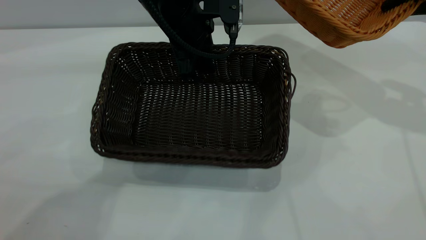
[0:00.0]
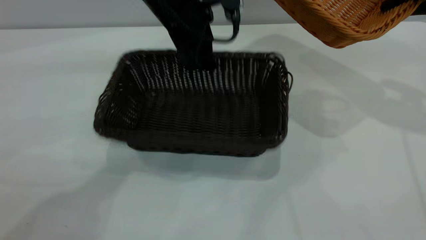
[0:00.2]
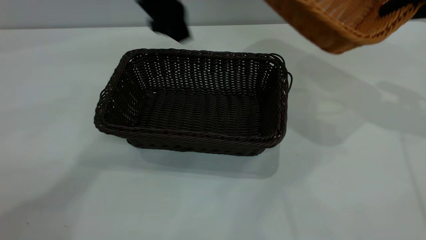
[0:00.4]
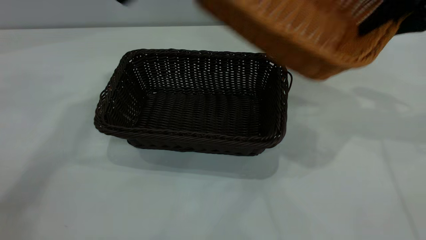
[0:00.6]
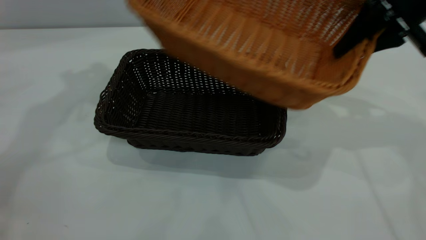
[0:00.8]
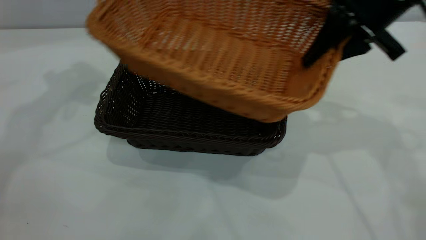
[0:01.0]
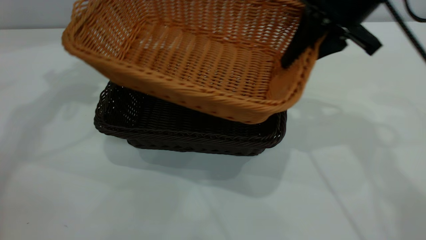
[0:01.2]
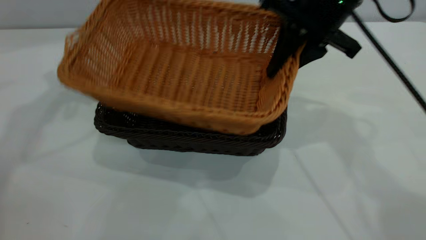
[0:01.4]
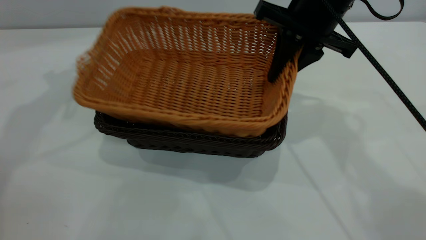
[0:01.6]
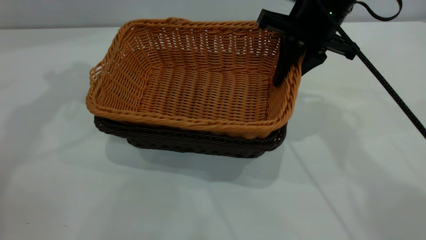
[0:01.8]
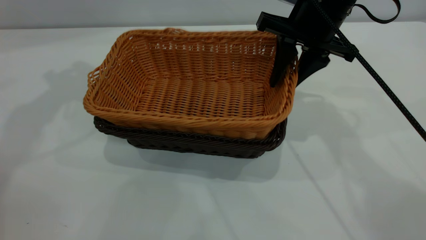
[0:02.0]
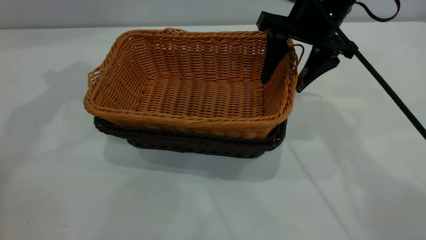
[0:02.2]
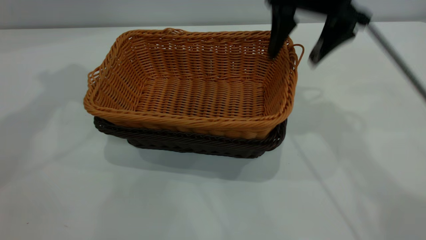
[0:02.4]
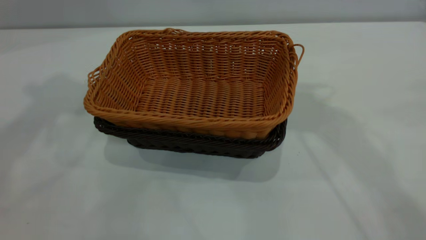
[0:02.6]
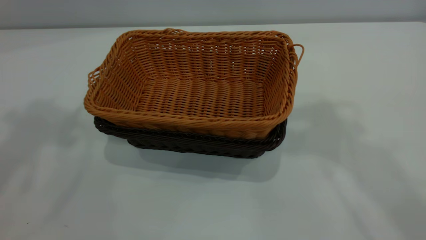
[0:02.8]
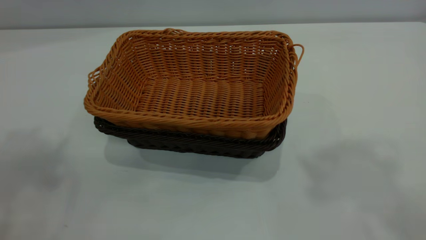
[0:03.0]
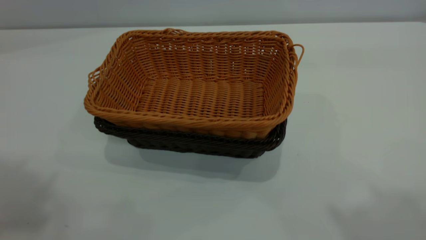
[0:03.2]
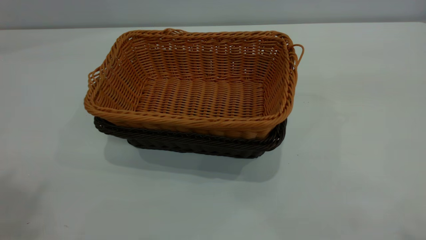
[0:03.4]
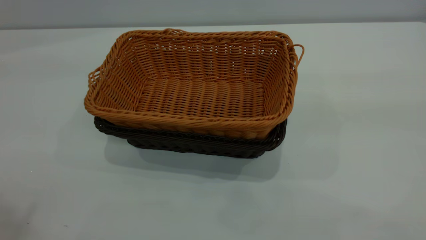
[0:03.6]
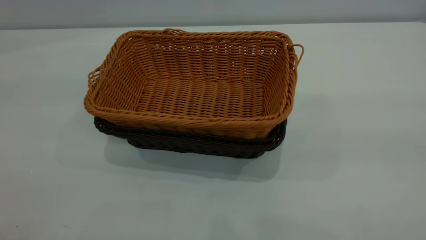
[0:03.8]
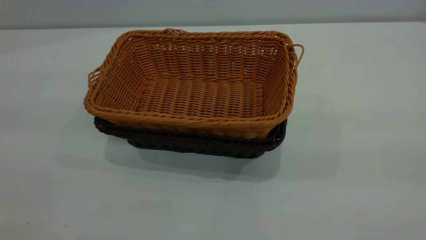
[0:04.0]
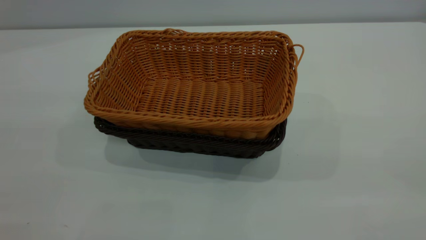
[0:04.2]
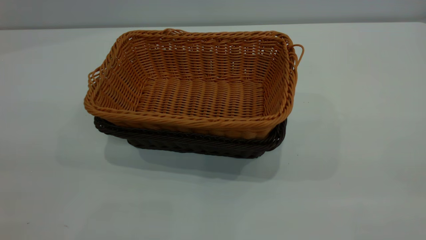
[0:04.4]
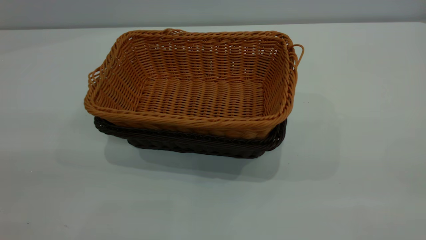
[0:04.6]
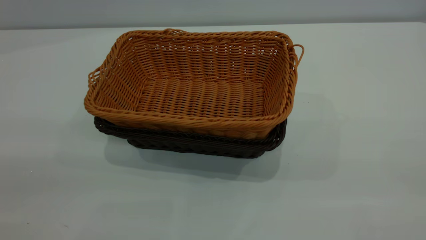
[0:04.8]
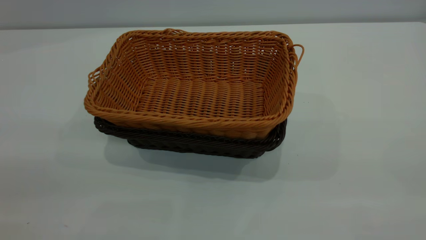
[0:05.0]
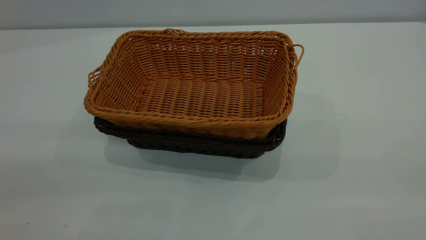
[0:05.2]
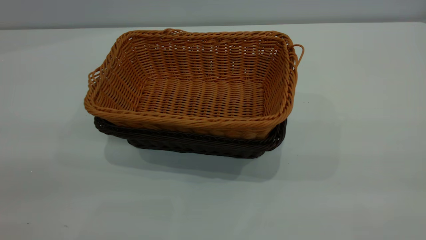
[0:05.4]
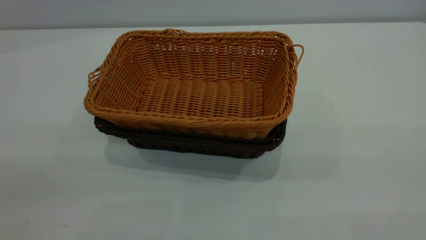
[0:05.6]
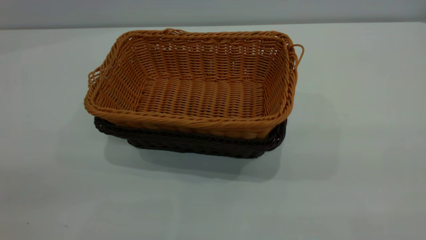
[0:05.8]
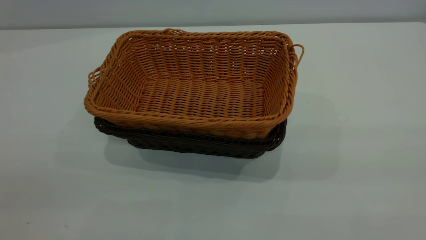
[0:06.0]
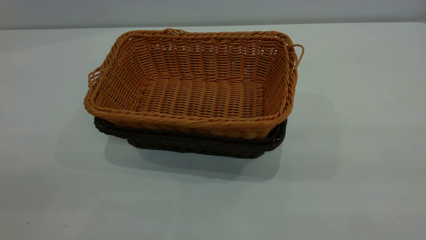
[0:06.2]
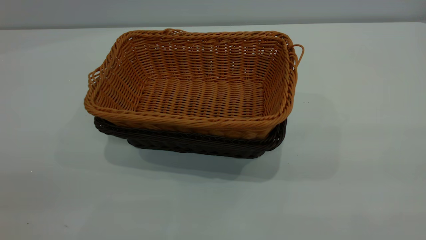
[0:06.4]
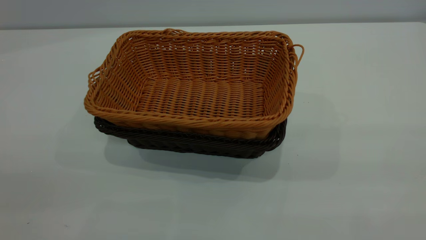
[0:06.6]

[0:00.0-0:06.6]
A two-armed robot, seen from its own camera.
Task of the whole recording: the left gripper grasp the black basket and place it in the center of the table, the right gripper grasp the brown basket and place it inside the black one.
Step, 0:00.6 to 0:02.4: Place the light basket on the dark basket.
0:00.0 to 0:01.6: The left gripper heads to the left and upward, covering about 25 cm. The right gripper goes roughly 20 cm to the left.
0:01.6 to 0:03.2: The left gripper moves backward and upward, about 35 cm; the right gripper heads upward and backward, covering approximately 40 cm, and opens.

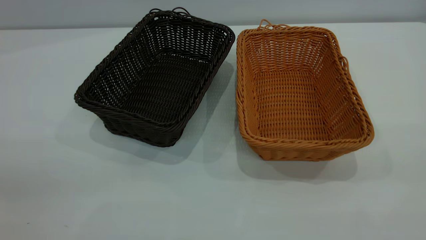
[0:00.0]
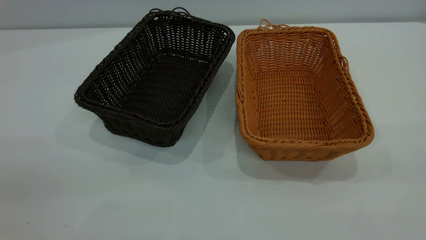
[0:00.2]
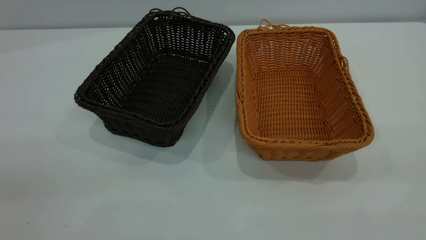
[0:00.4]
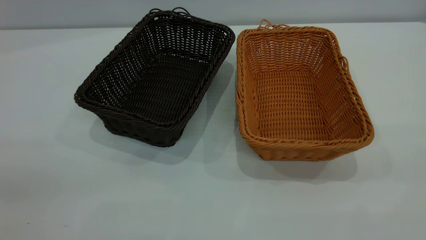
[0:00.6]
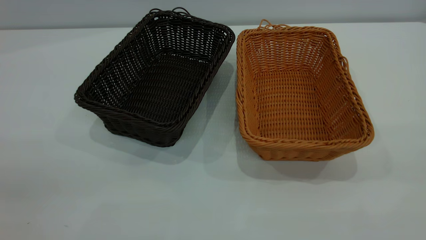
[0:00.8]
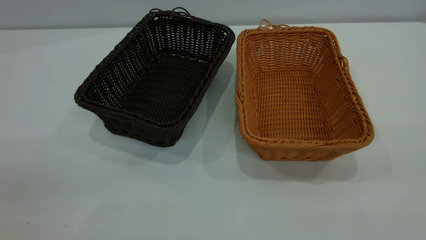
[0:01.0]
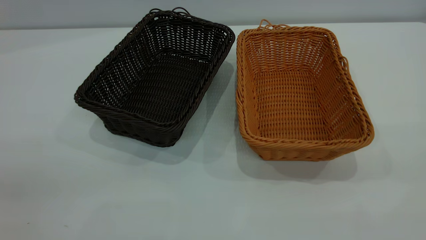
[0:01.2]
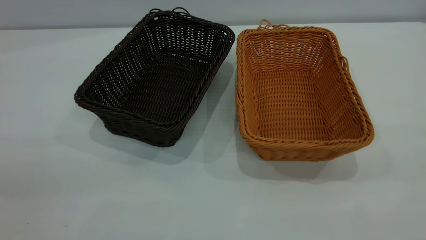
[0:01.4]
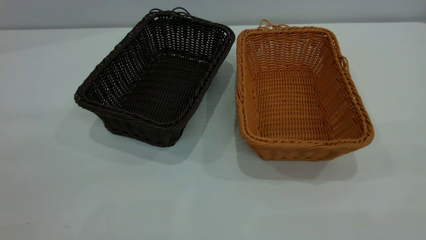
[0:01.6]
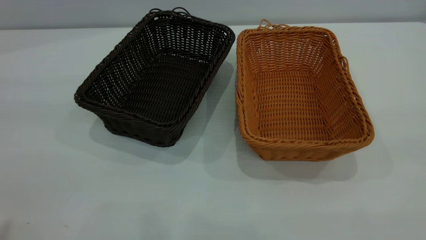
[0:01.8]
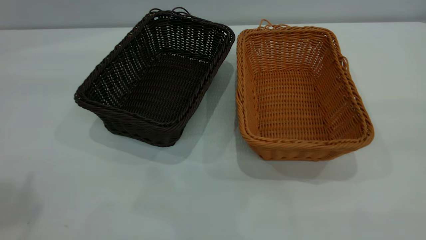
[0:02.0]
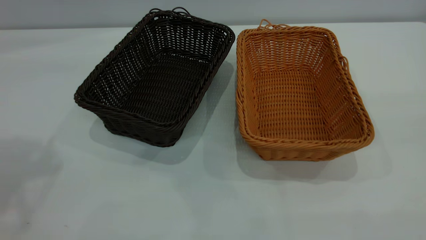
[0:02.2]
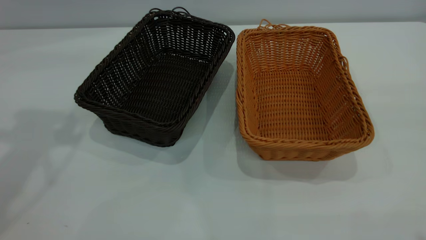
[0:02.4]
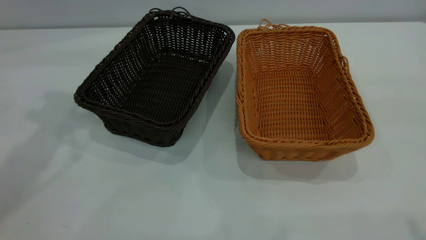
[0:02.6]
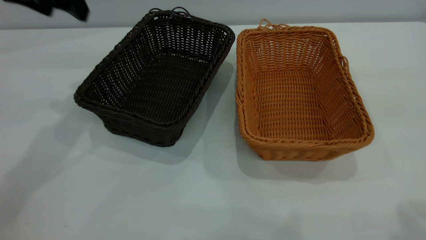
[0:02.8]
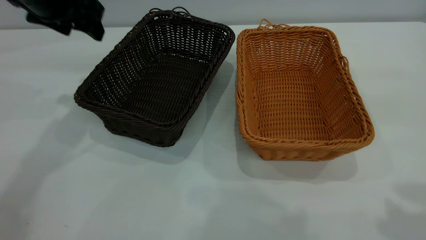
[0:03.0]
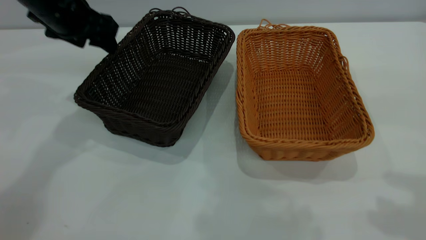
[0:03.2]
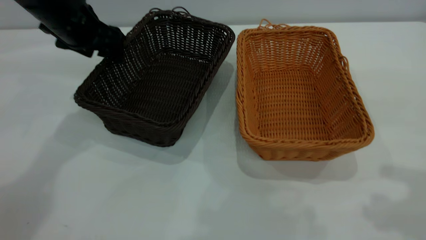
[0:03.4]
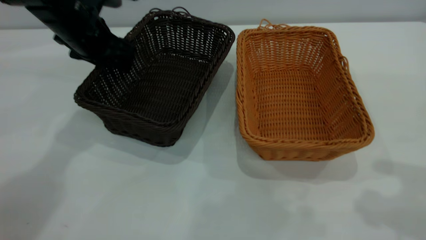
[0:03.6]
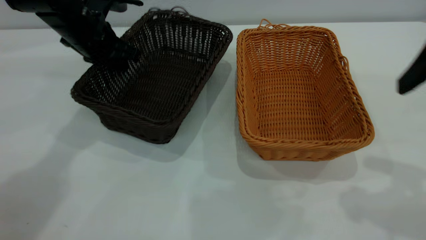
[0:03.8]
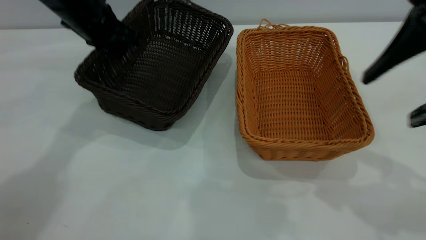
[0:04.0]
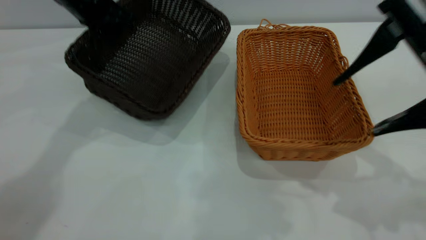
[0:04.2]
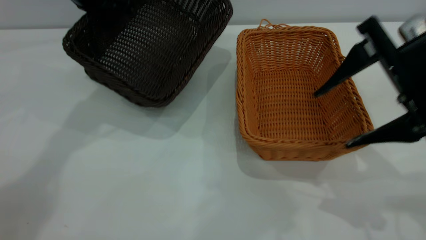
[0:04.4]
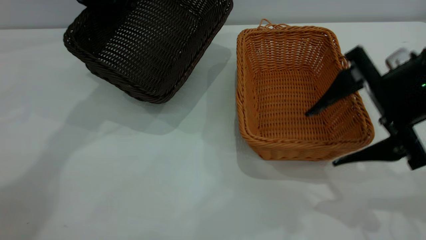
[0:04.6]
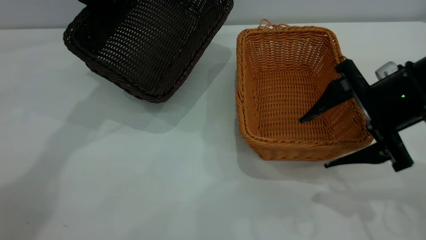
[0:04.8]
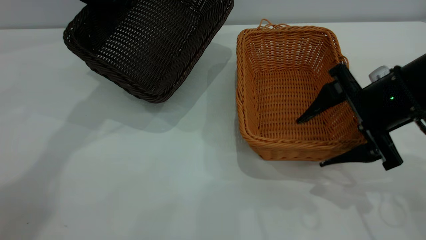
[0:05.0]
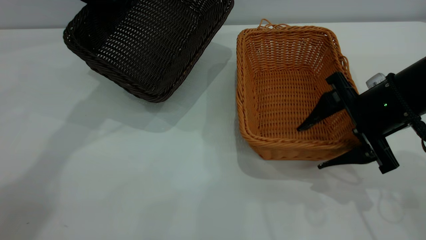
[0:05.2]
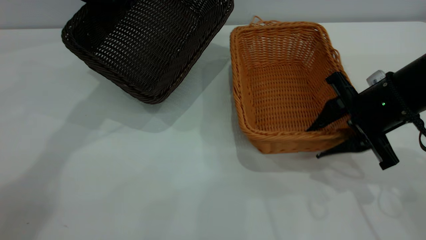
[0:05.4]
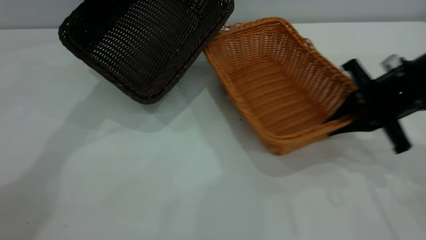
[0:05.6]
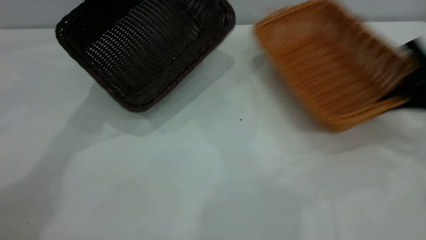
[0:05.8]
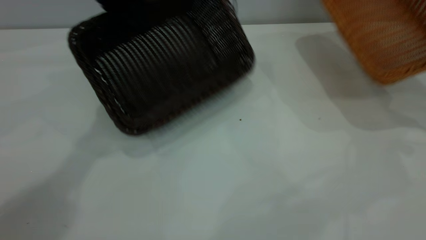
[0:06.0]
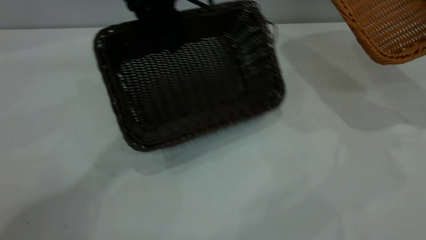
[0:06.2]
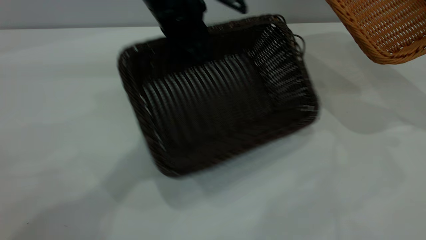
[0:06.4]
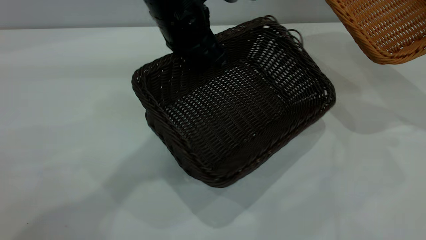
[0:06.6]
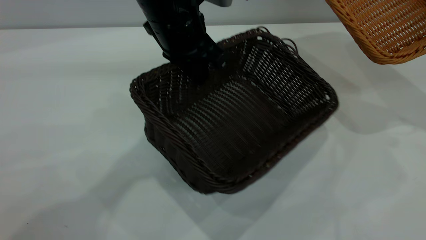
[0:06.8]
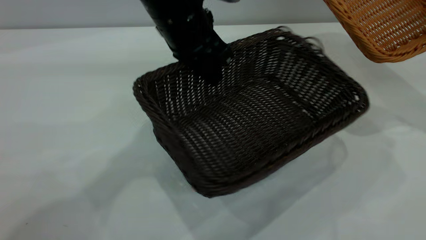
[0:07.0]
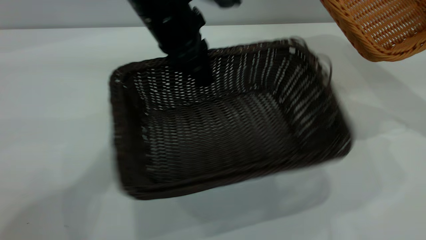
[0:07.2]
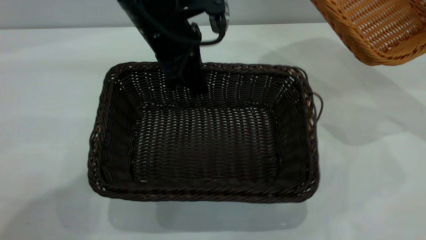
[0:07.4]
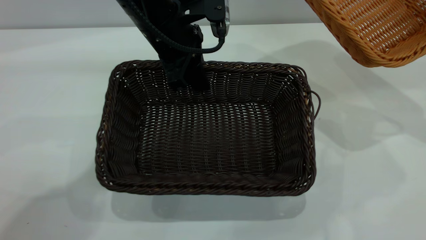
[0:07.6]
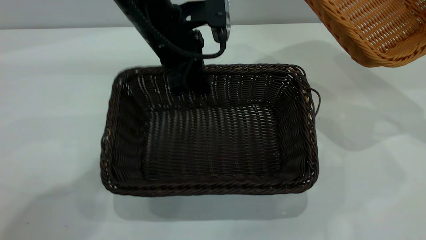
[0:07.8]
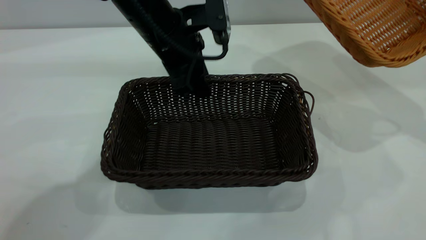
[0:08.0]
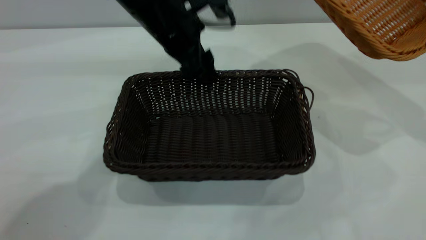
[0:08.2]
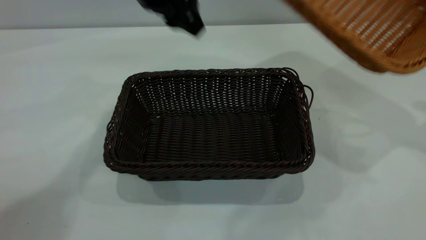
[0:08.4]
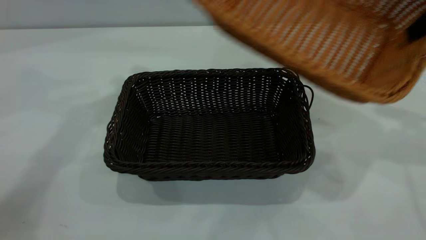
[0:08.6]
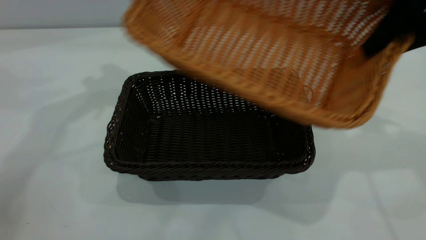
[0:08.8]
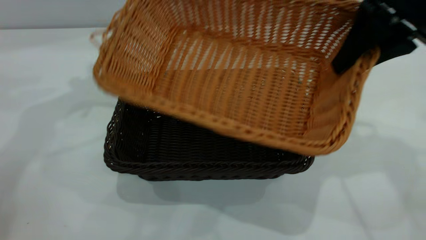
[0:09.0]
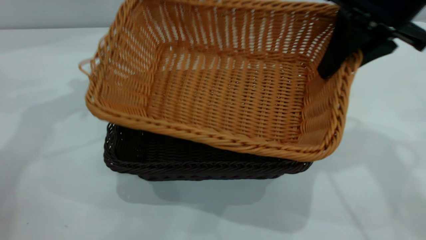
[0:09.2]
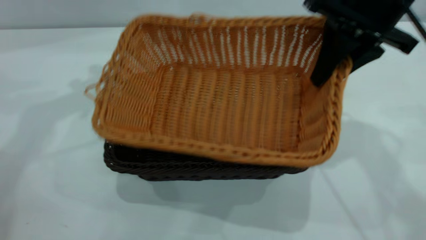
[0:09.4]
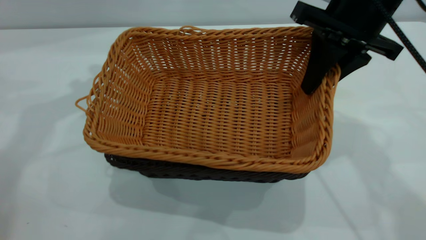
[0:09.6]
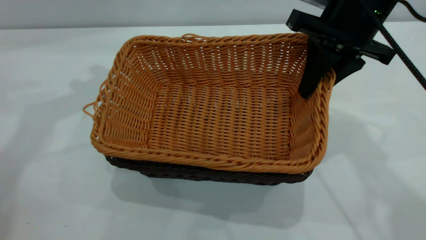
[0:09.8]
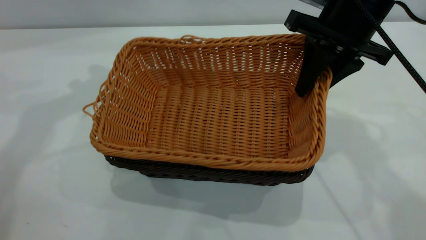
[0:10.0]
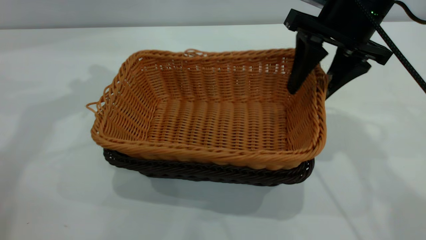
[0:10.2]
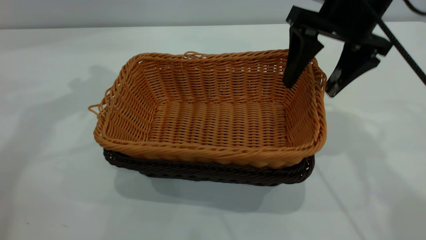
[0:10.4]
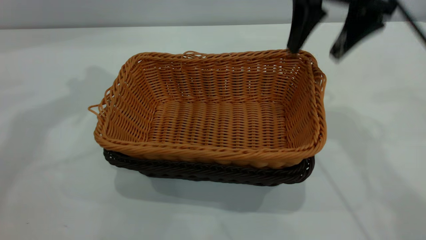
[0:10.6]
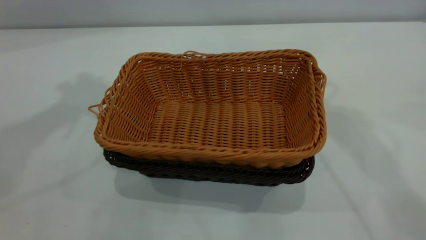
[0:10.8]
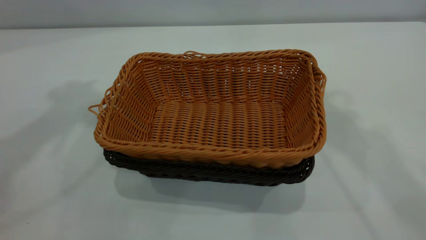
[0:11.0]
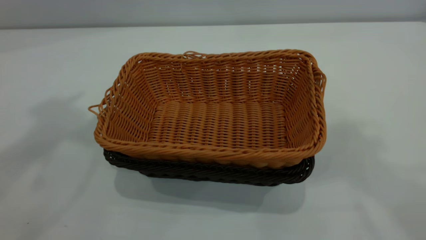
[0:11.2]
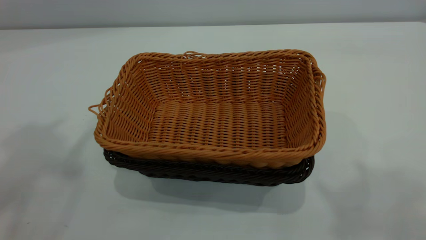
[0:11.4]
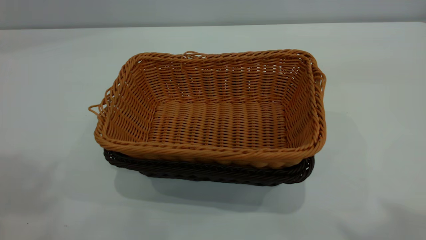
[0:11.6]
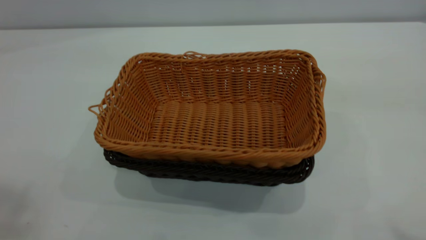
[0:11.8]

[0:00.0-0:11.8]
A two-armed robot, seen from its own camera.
Task of the whole recording: the left gripper grasp the black basket and place it in the center of the table, the right gripper grasp the brown basket and place it inside the black one.
Step, 0:00.0 to 0:05.8: Pick up the light basket with the right gripper.
Step, 0:06.2 to 0:08.2: Move the dark basket to the center of view.
Step, 0:08.4 to 0:10.4: Place the light basket on the dark basket.
0:00.0 to 0:01.4: Neither gripper changes place.
0:01.4 to 0:03.0: The left gripper moves forward, approximately 40 cm.
0:03.0 to 0:04.4: The right gripper moves downward and forward, roughly 15 cm. The left gripper travels downward and back again, some 5 cm each way, and closes up.
0:04.4 to 0:06.0: The left gripper goes about 5 cm to the right; the right gripper moves to the right and forward, about 20 cm, and closes up.
0:06.0 to 0:07.4: The left gripper moves backward and to the right, roughly 10 cm.
0:07.4 to 0:08.8: The left gripper moves to the left and upward, about 20 cm, and opens its fingers, while the right gripper travels to the left by about 15 cm.
0:08.8 to 0:10.4: The right gripper travels to the left by approximately 5 cm, and opens its fingers.
0:10.4 to 0:11.8: The two grippers go about 35 cm backward and upward.
